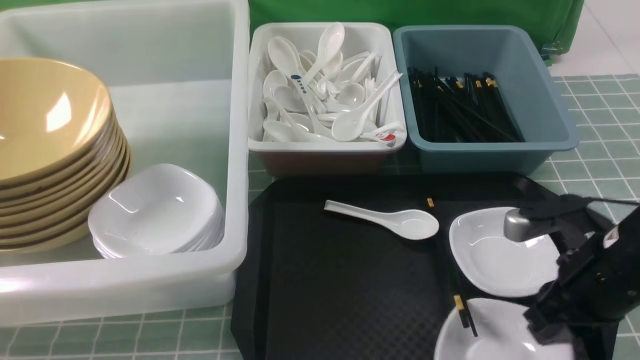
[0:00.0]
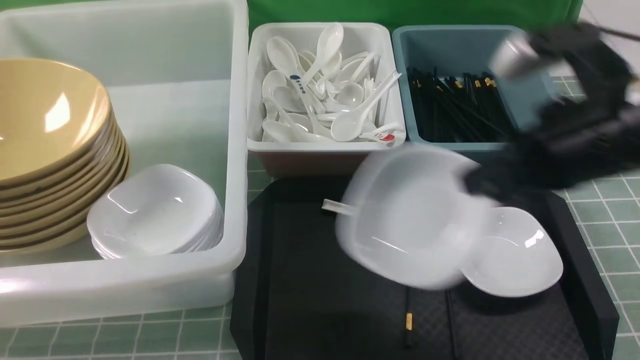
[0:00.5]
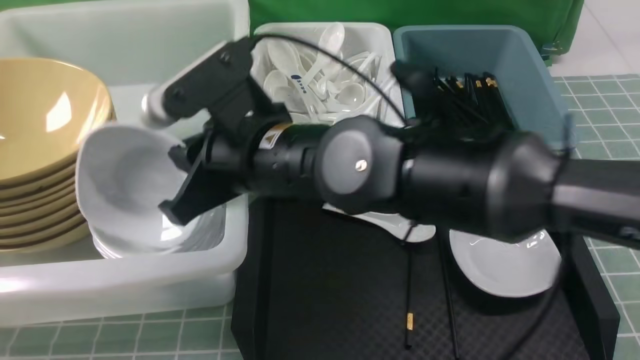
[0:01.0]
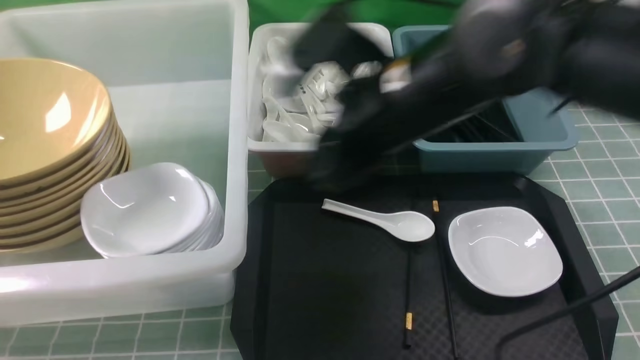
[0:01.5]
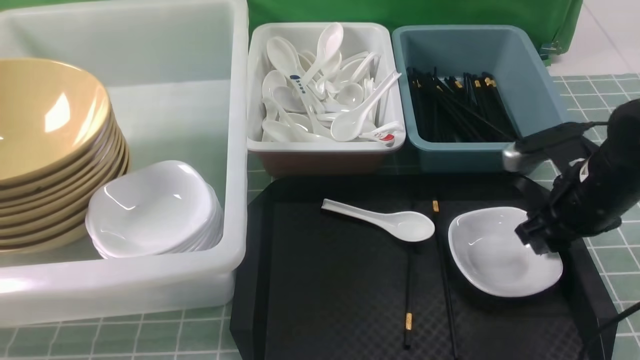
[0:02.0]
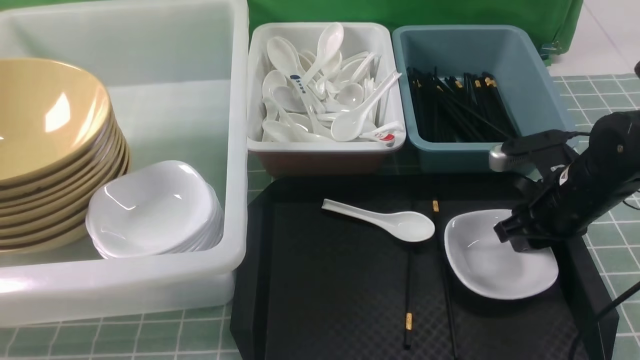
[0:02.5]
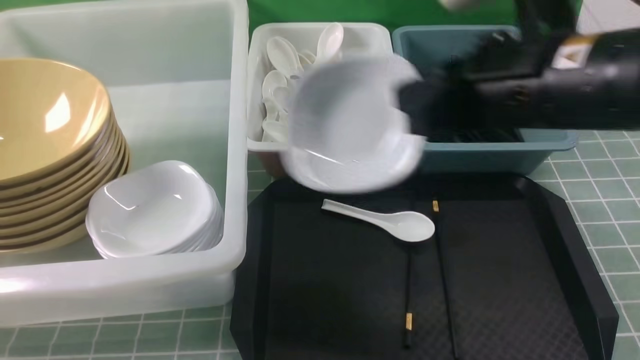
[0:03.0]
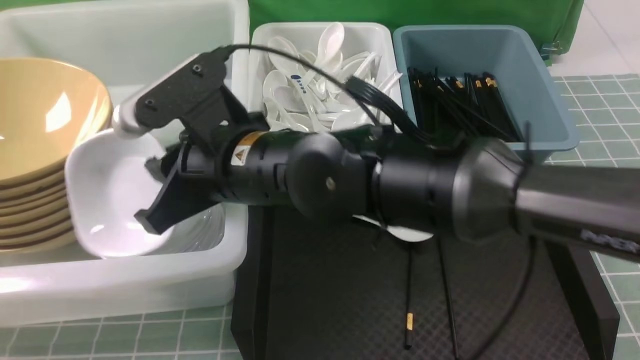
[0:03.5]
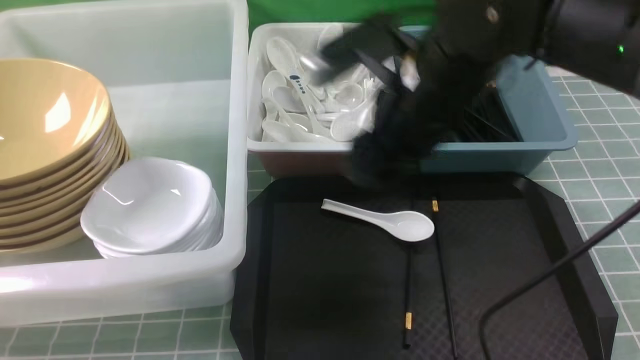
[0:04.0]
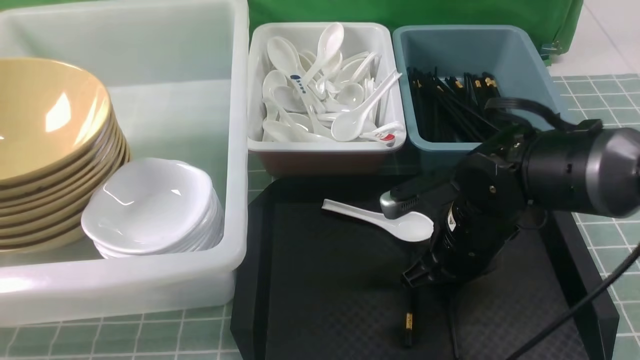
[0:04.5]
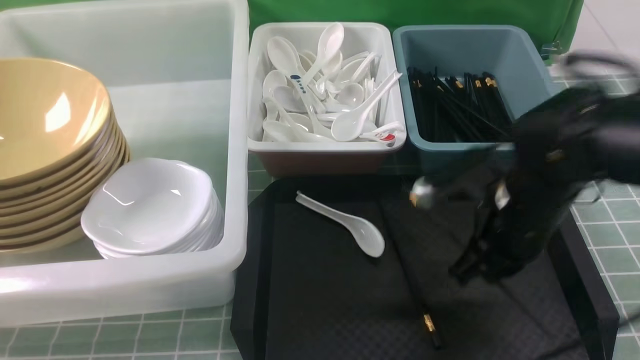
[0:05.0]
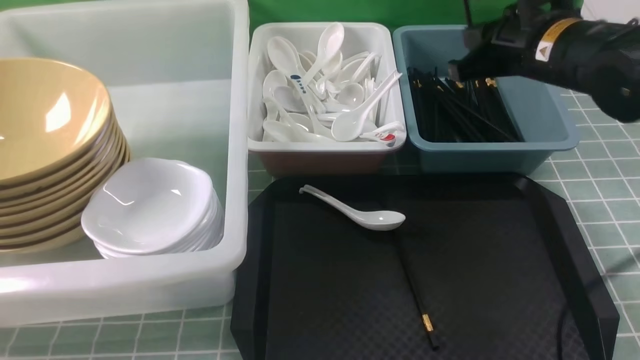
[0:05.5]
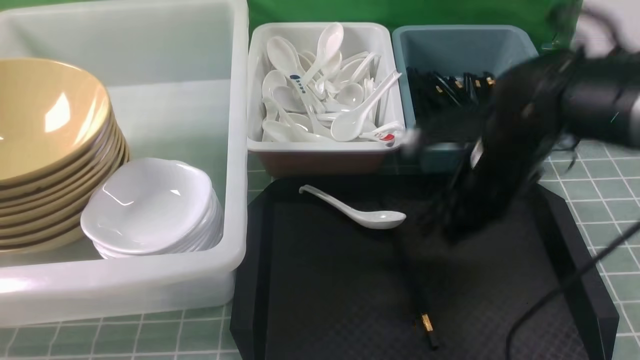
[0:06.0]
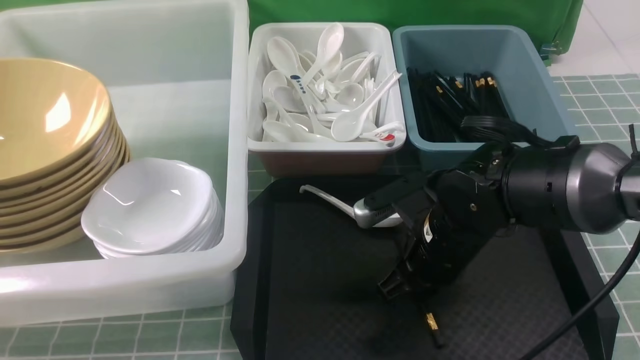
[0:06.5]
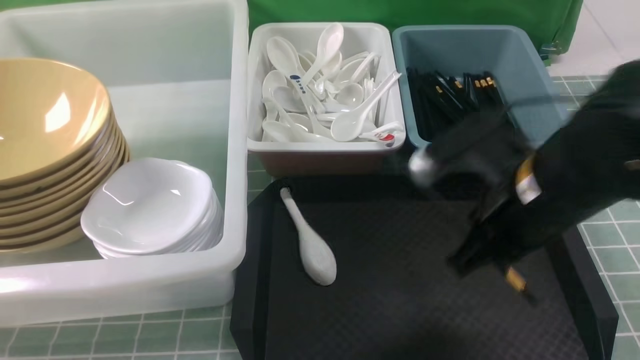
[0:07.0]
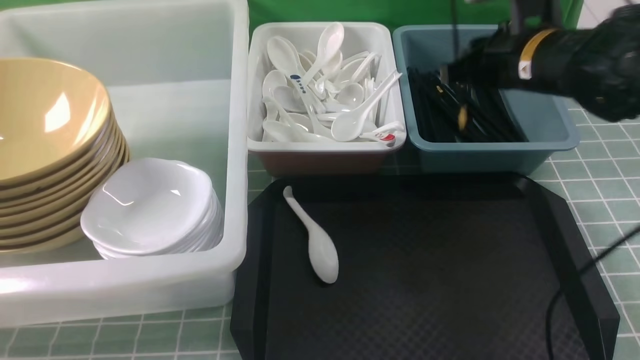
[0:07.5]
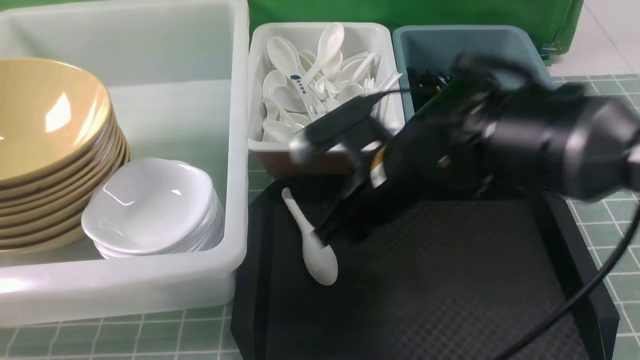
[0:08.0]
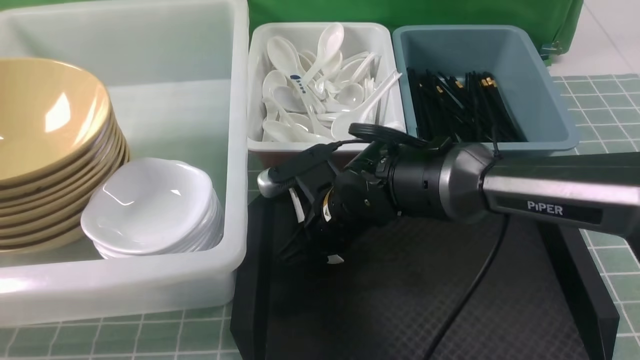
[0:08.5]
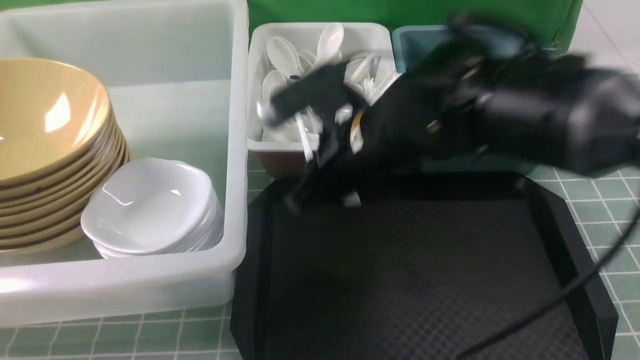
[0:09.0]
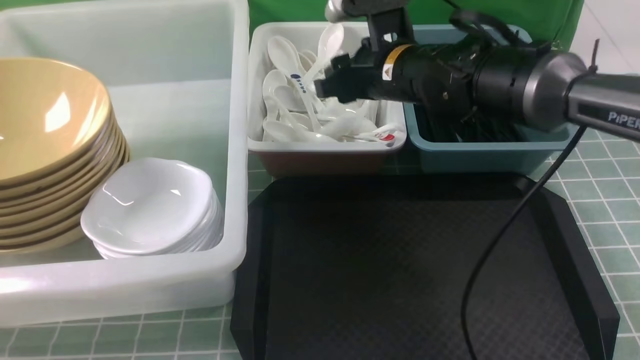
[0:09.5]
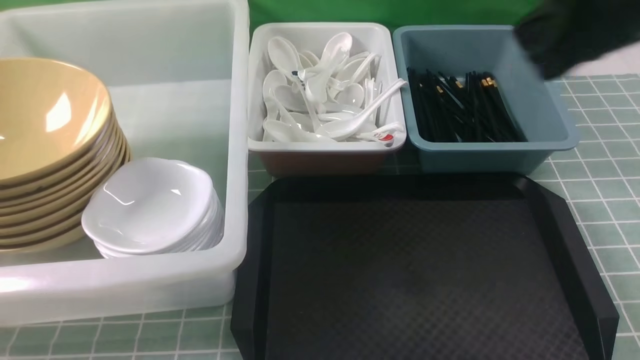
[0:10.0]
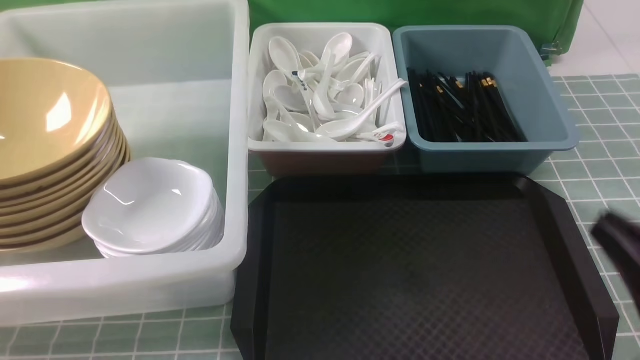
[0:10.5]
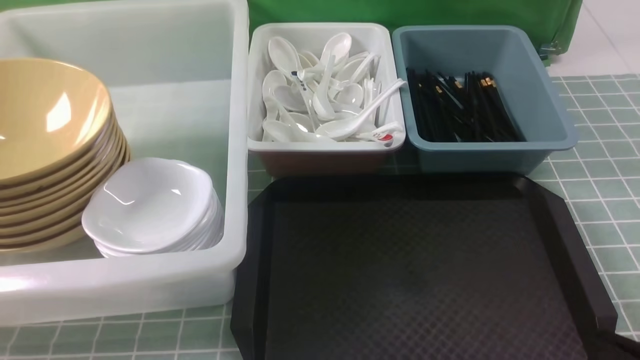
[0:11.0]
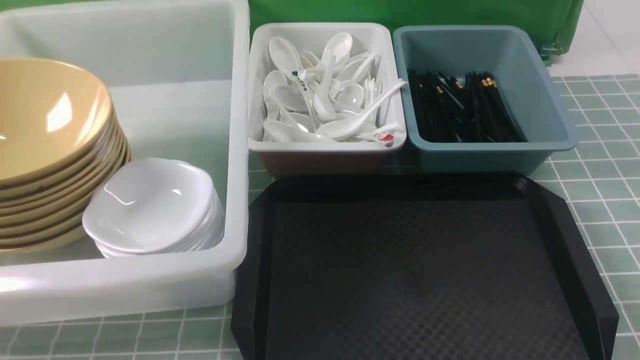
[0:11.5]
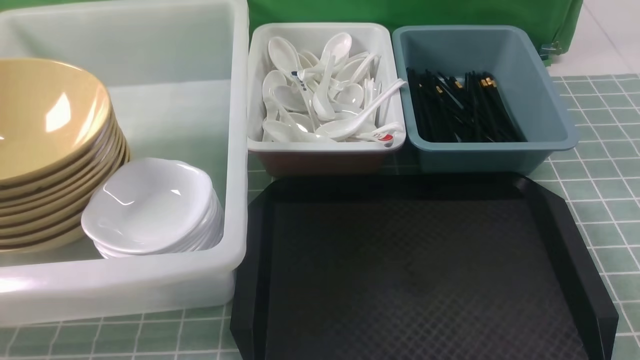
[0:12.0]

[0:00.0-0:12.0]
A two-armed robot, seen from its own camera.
Task of the whole recording: on blue table put chopsticks spoon bowls plates into blue grey white boxes.
Step, 0:00.5 to 0:01.0: use the right arm to put the plate into the large storage box on the left.
Step, 0:01.5 to 0:02.5: use the right arm to grab the plate.
Step, 0:03.0 to 0:03.5: use the right arm to put the plate into the large storage box on the left.
Step, 0:04.0 to 0:04.5: use the right arm to grab a chopstick.
Step, 0:05.0 to 0:05.5: use the right arm to put a chopstick into the small storage box on the right.
Step, 0:07.0 to 0:07.5: use the right arm to put a chopstick into the small storage box on the right.
Step, 0:08.0 to 0:08.5: use the right arm to grab the soup spoon in the middle.
Step, 0:09.0 to 0:09.5: use the right arm to put the soup spoon into the small storage box in the middle.
0:00.0 to 0:02.0: The right gripper shifts about 10 cm forward, travels to the left and back again, approximately 30 cm each way, and opens.
0:02.0 to 0:04.0: The right gripper travels to the left and upward by approximately 20 cm, and closes and opens again.
0:04.0 to 0:06.0: The right gripper shifts about 10 cm to the right and downward, and closes, then reopens.
0:06.0 to 0:08.0: The right gripper travels to the left by approximately 10 cm, and closes, then opens again.
0:08.0 to 0:10.0: The right gripper moves upward, to the right and backward, about 25 cm, and closes.
0:10.0 to 0:12.0: The right gripper travels downward, backward and to the right by approximately 30 cm.

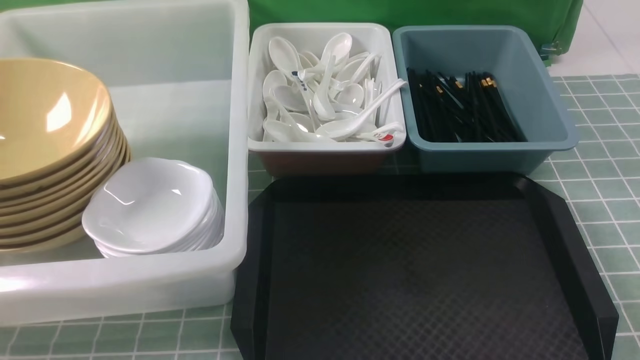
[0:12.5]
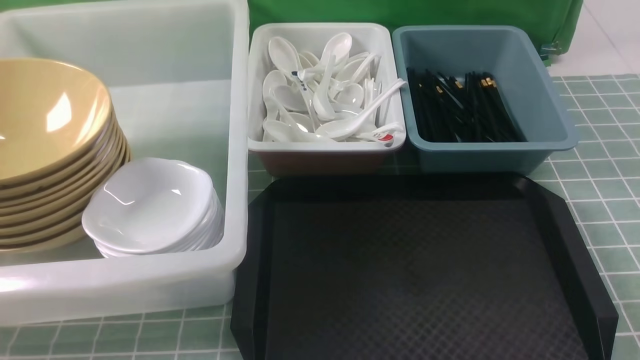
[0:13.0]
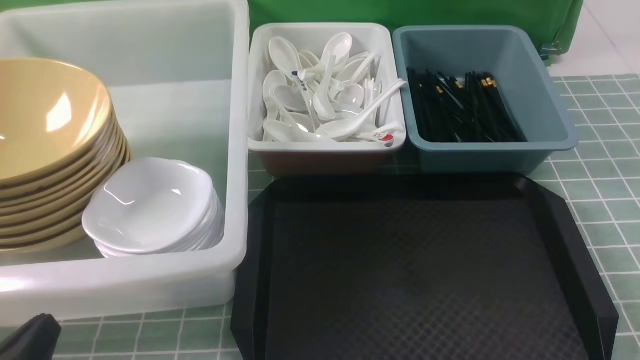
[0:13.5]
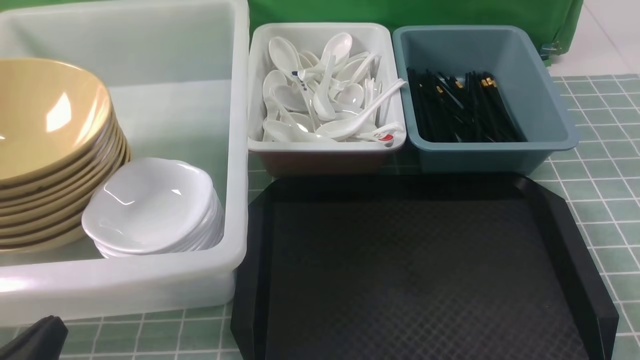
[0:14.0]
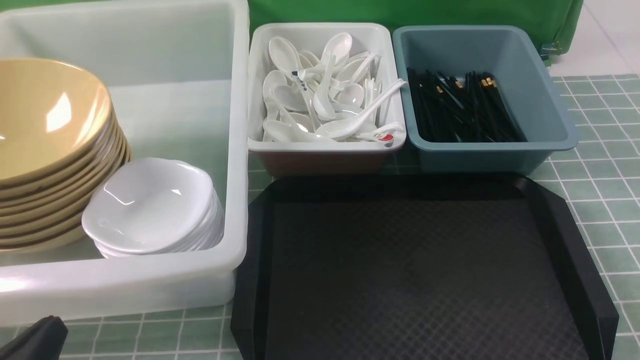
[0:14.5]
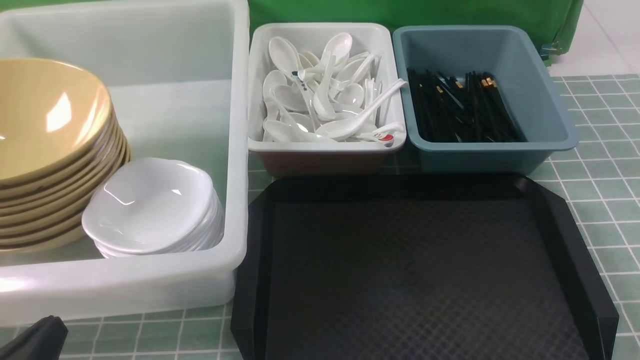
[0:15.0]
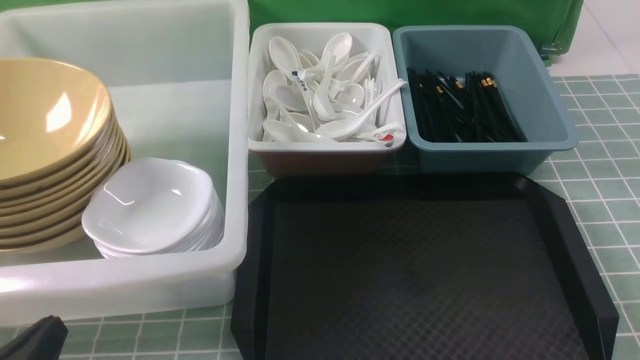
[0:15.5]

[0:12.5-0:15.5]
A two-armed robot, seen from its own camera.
Task of the whole recording: on blue table put chopsticks spoon bowls plates into blue grey white boxes.
0:12.5 to 0:14.0: The left gripper travels downward by roughly 10 cm.
0:14.0 to 0:15.5: Neither gripper changes place.
